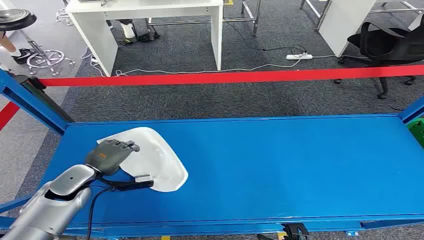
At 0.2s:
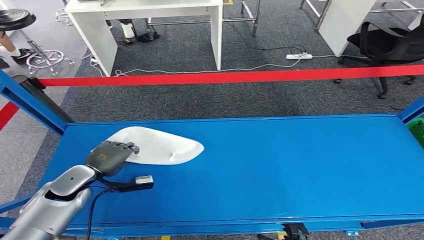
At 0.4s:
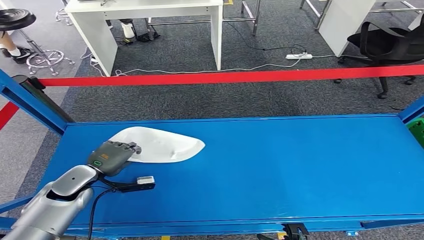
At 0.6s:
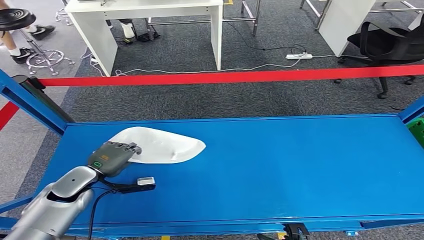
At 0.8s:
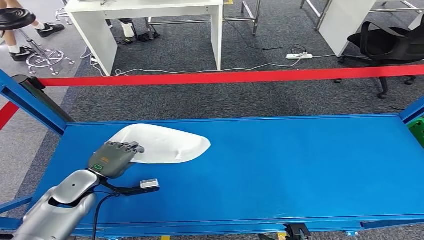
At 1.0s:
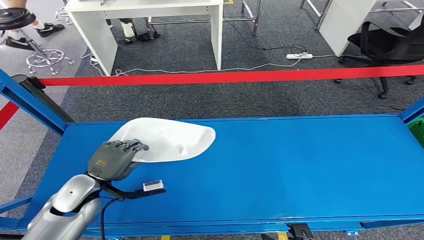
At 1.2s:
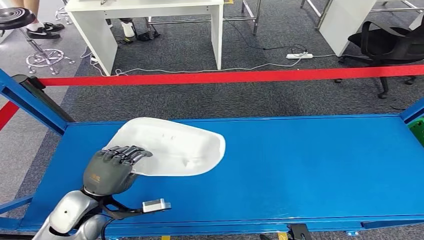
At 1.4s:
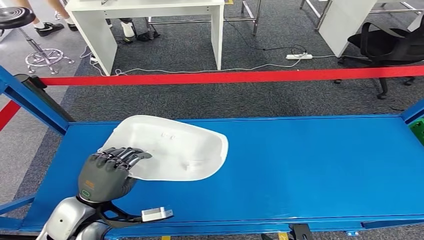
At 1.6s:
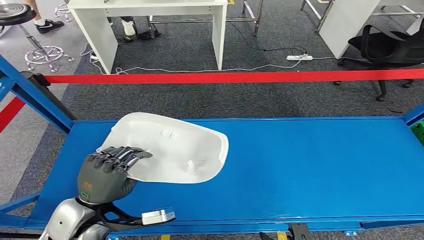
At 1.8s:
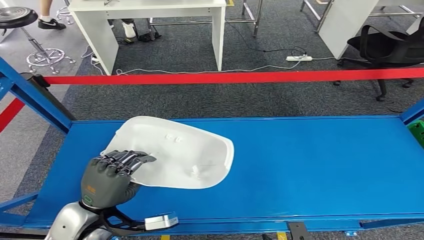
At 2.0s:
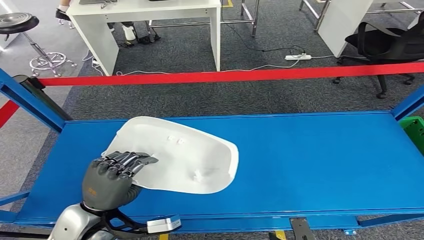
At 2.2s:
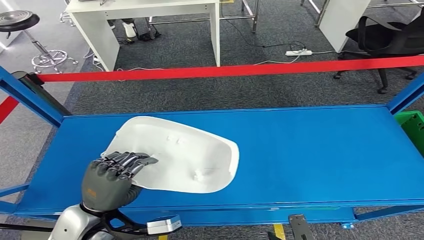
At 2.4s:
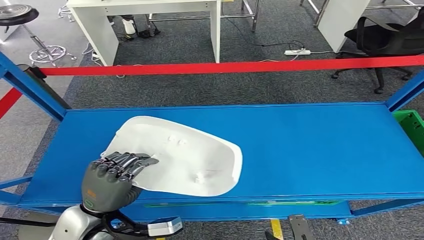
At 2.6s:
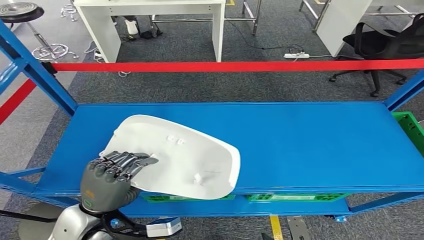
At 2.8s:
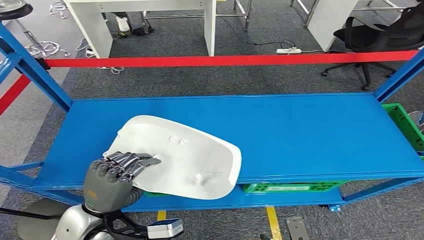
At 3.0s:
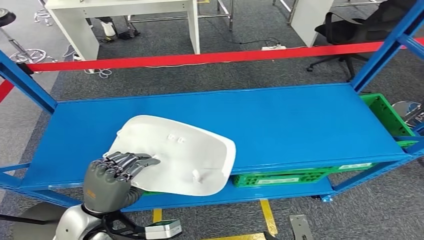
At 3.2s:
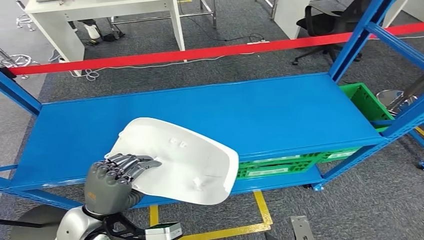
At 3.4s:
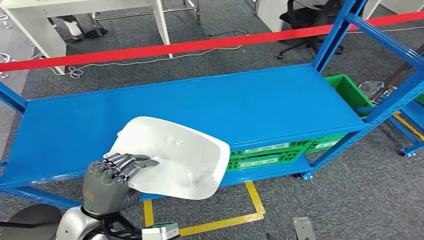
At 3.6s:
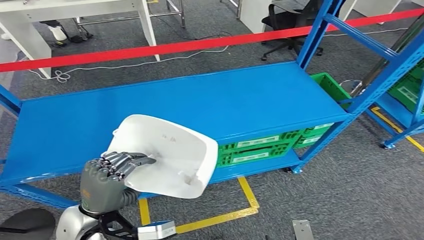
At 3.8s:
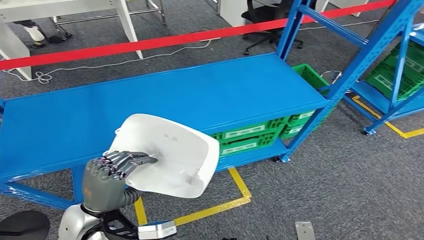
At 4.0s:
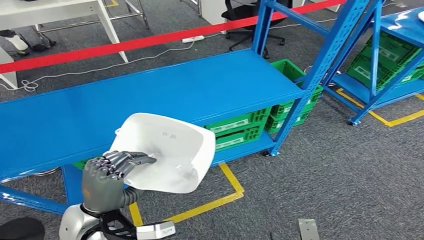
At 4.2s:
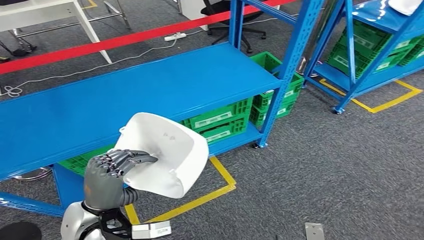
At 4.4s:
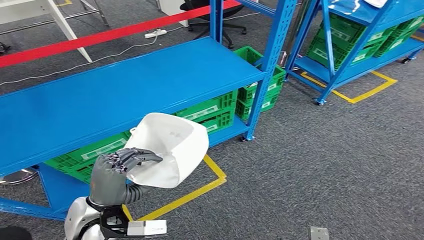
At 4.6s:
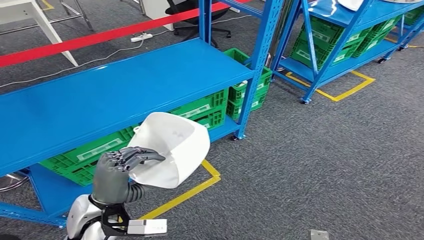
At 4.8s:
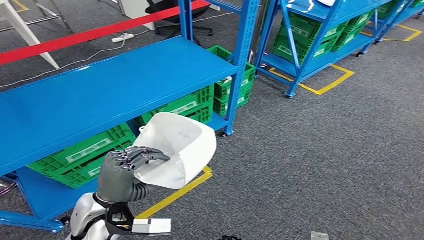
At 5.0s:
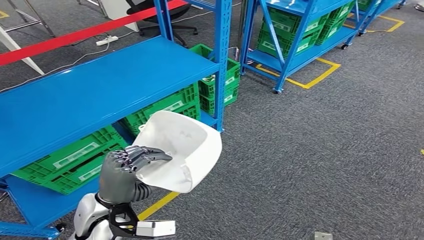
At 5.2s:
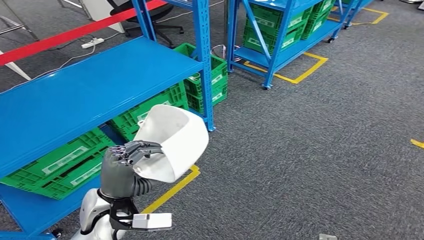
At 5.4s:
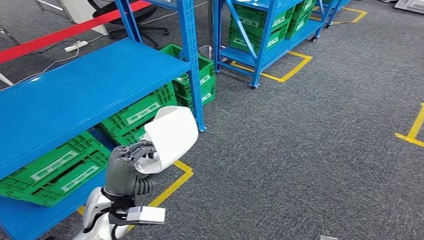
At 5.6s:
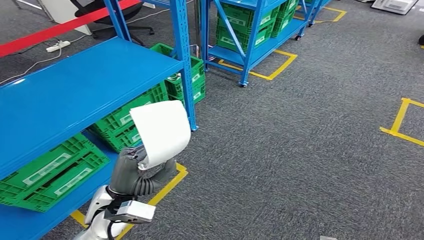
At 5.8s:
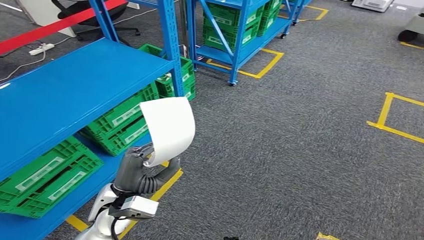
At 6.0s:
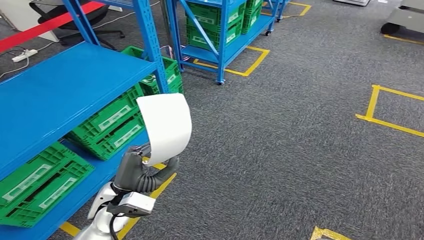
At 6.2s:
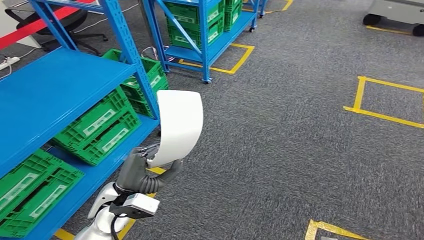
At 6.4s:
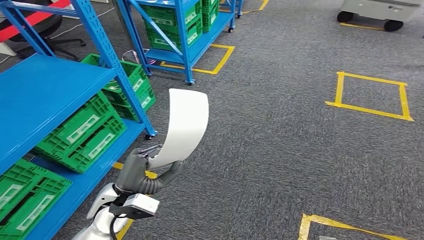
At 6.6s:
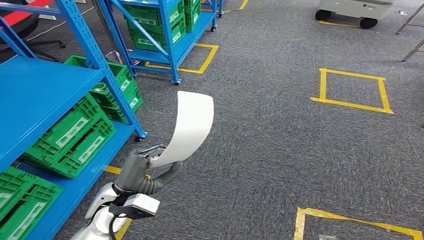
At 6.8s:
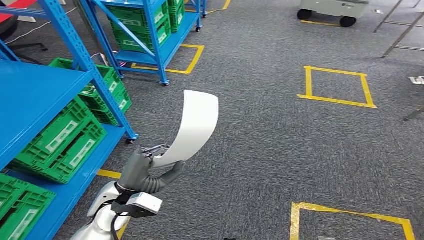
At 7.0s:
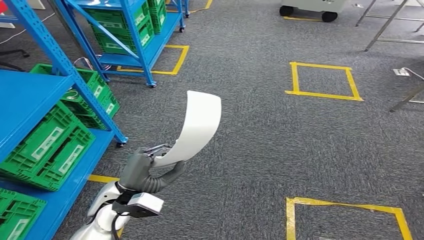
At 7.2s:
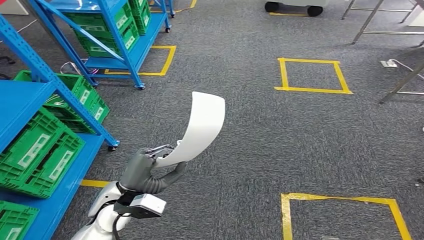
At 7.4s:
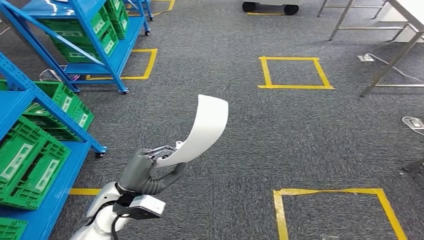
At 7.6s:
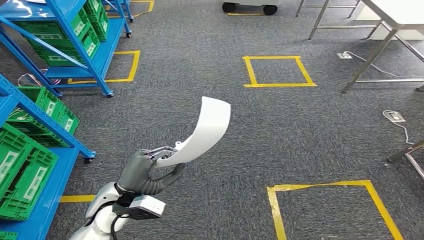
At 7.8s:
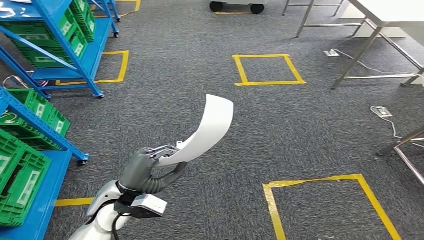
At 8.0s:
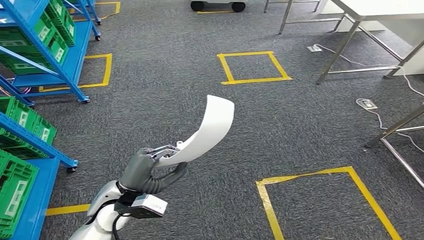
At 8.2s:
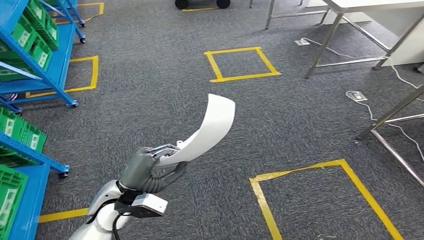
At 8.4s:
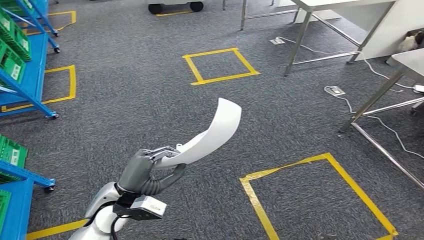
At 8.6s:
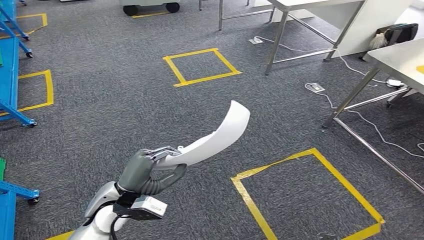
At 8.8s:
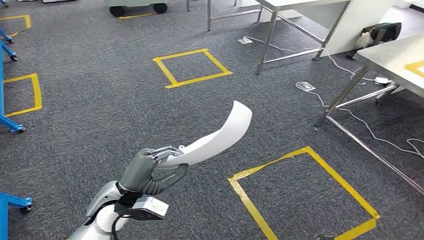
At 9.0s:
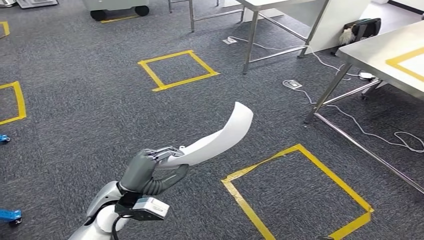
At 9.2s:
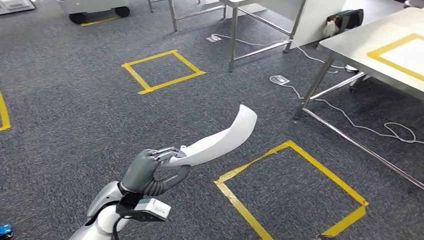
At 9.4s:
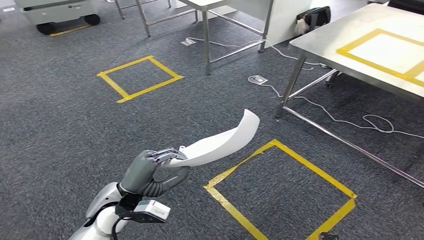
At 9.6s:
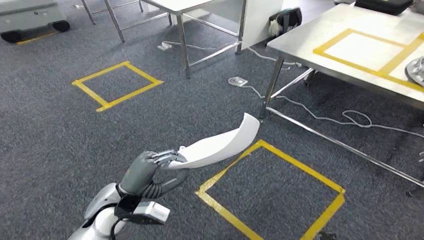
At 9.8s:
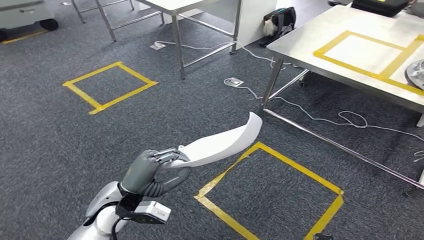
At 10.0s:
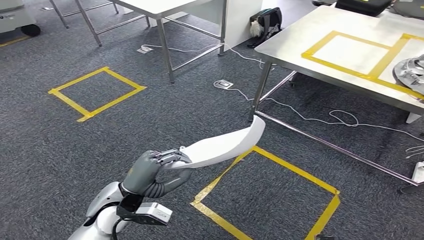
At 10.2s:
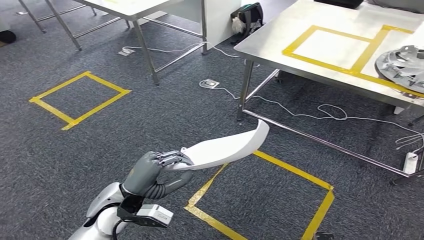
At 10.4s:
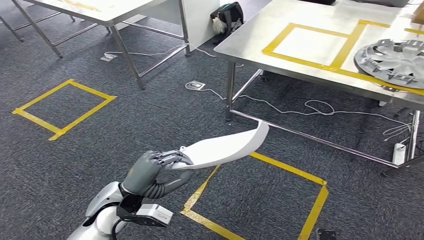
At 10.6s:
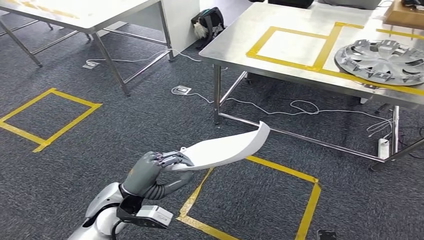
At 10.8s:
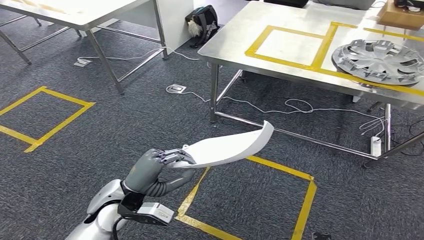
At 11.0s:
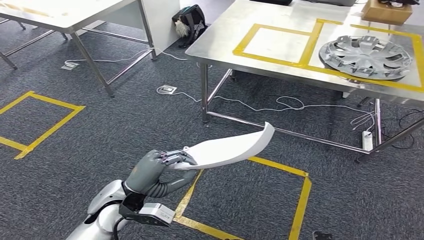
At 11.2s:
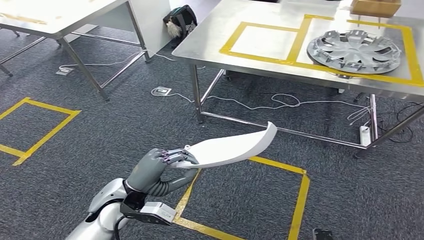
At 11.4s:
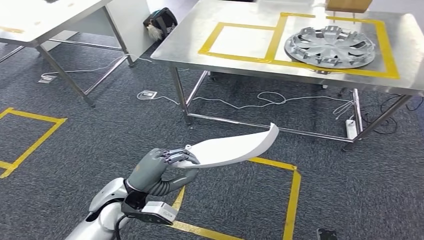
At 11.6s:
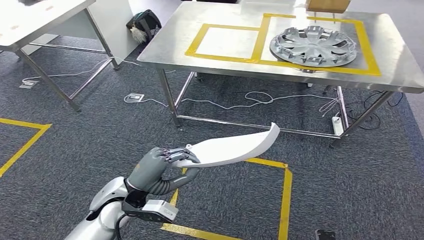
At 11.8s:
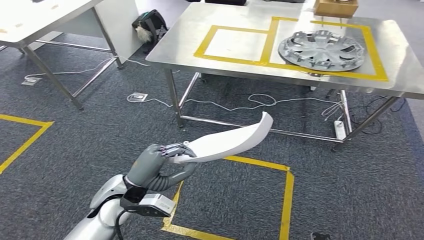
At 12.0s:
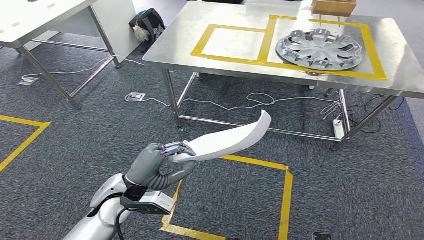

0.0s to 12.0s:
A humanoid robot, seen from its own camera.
Step, 0.0s to 2.2s: Pick up the small parts from the shelf.

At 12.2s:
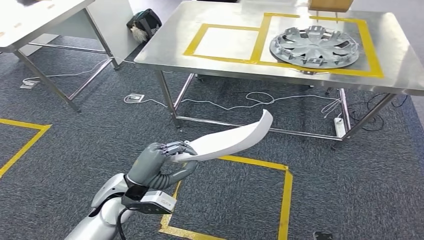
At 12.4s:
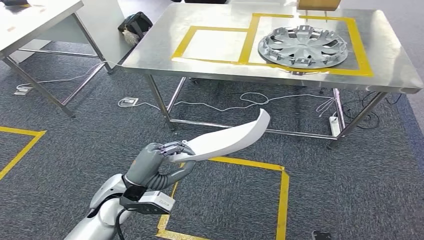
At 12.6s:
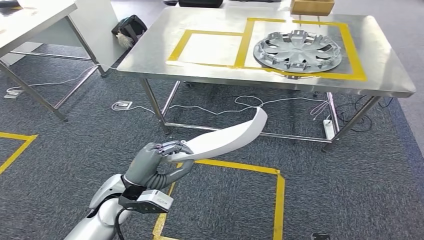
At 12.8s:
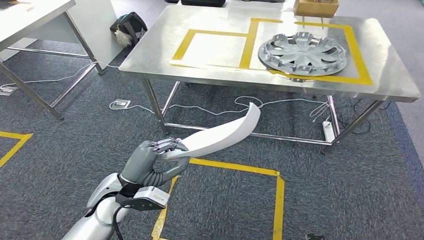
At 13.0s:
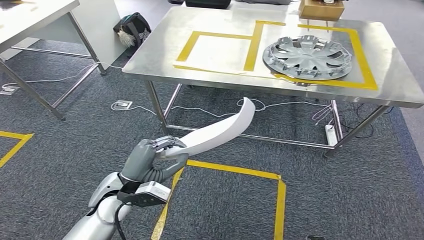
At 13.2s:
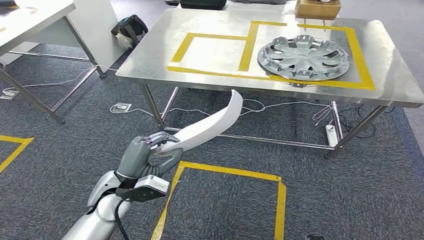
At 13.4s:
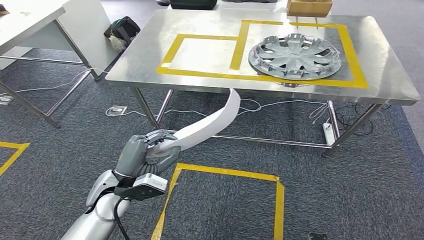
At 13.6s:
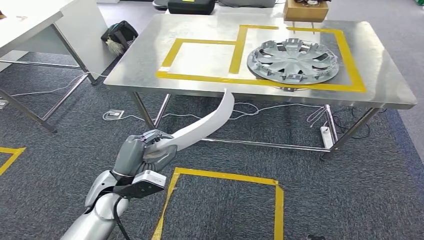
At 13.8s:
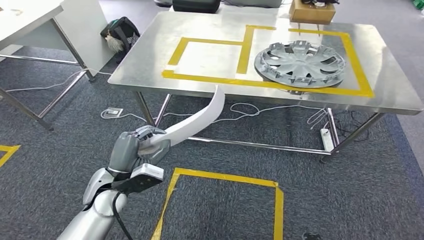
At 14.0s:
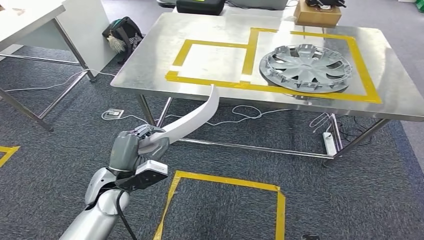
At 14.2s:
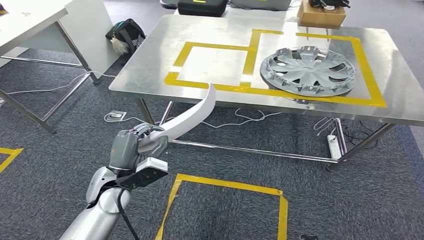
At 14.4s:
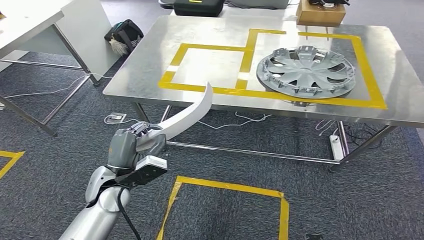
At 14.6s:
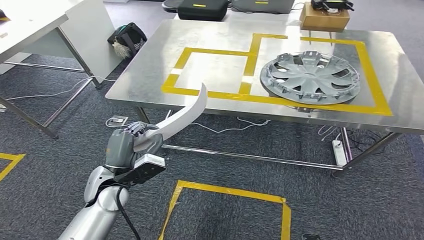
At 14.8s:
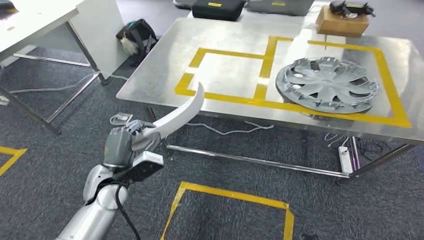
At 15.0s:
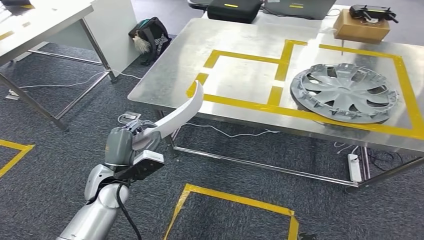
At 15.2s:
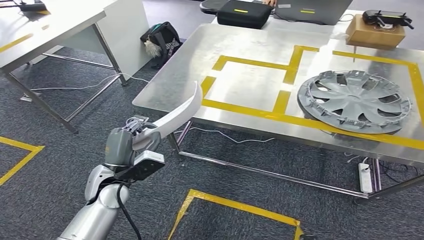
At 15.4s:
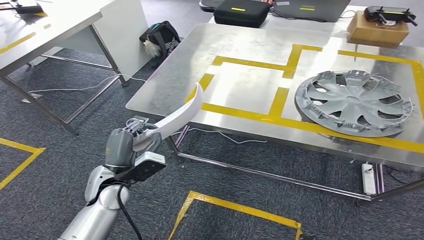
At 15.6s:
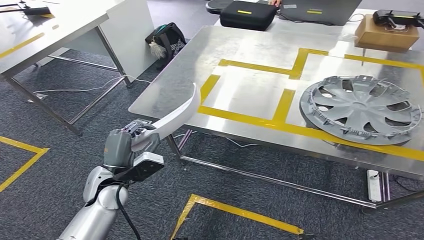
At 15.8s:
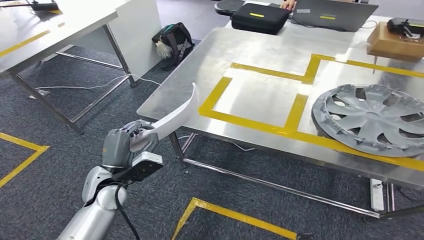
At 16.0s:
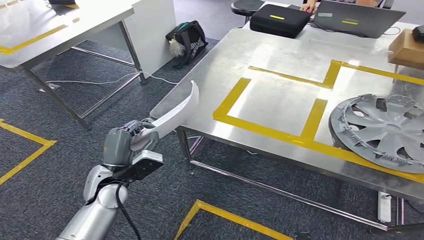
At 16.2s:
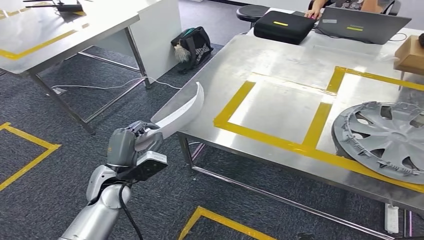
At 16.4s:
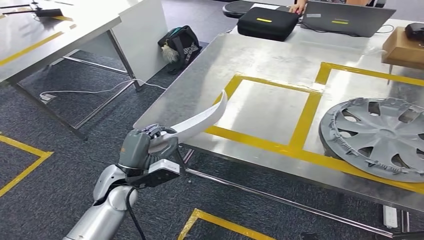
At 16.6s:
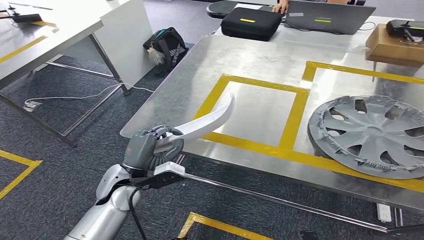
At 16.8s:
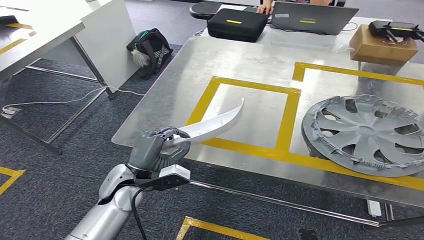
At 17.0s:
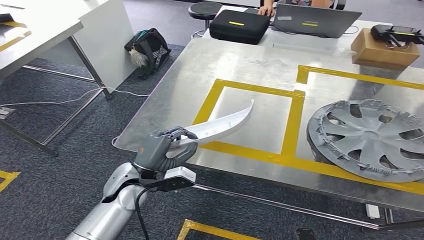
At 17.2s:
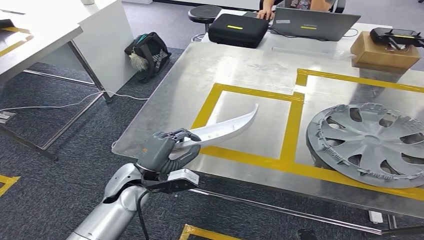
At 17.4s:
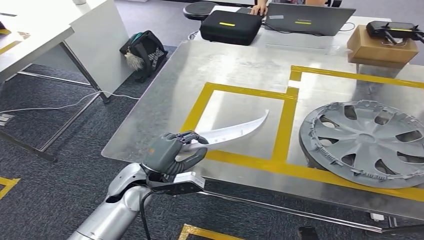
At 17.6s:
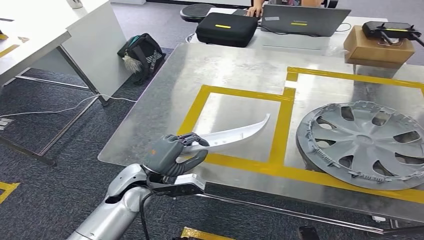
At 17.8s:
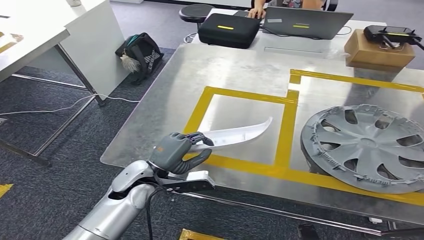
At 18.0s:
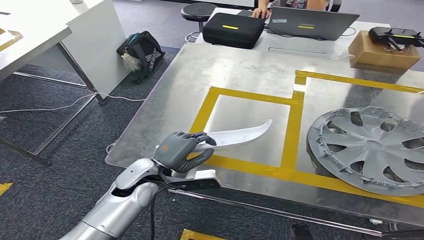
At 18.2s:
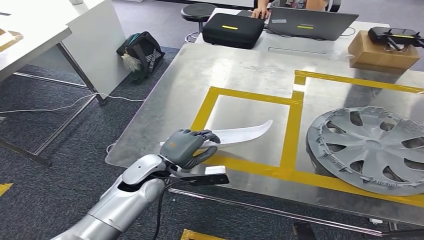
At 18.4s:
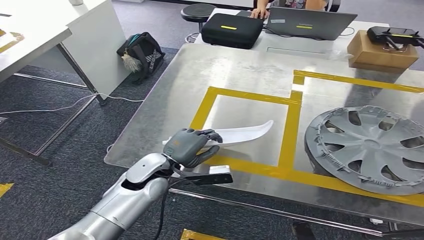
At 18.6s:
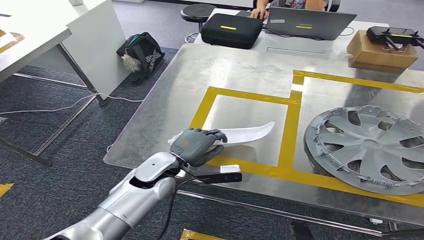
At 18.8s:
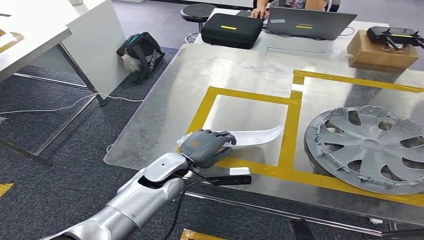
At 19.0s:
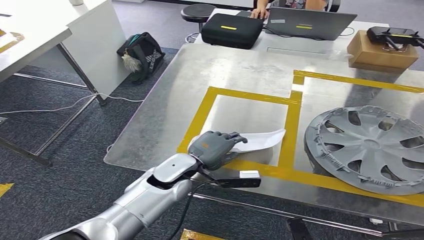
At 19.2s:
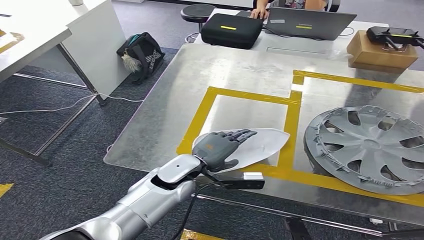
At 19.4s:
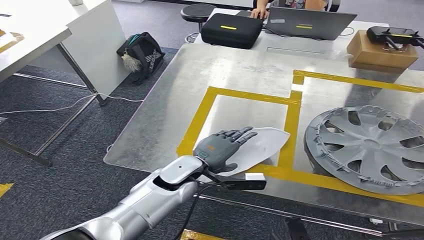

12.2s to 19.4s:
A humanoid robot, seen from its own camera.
Step, 12.2s to 14.6s: Move the small parts to the workbench.
18.0s to 19.4s: The left hand moves to the right, some 10 cm.
